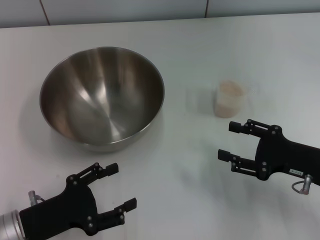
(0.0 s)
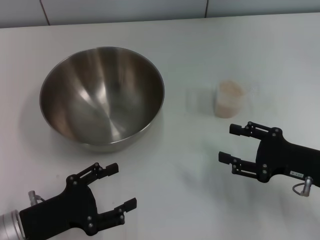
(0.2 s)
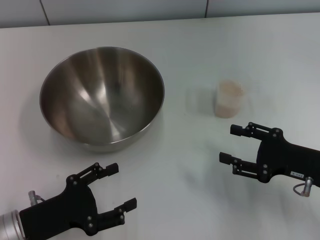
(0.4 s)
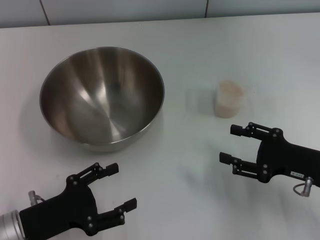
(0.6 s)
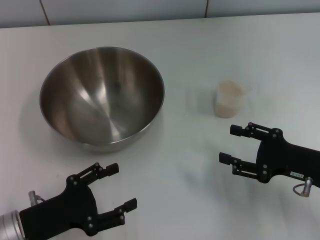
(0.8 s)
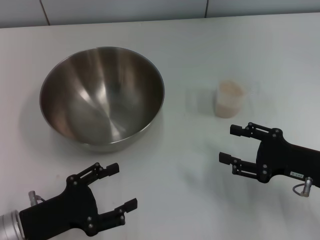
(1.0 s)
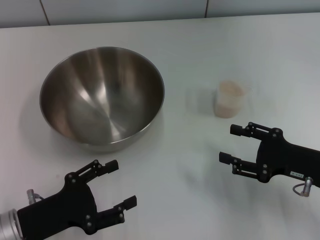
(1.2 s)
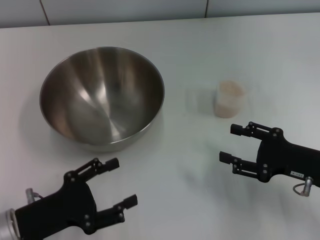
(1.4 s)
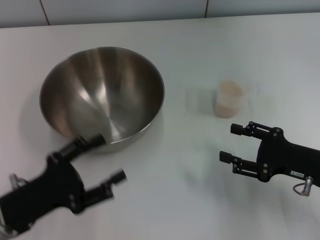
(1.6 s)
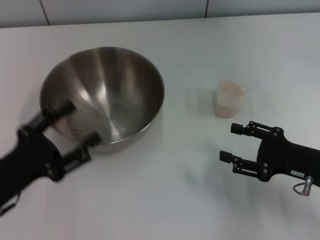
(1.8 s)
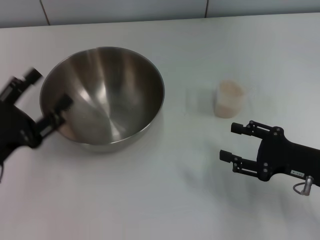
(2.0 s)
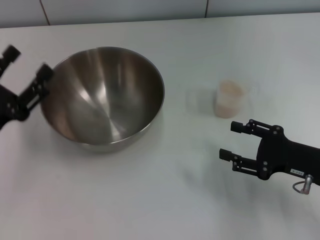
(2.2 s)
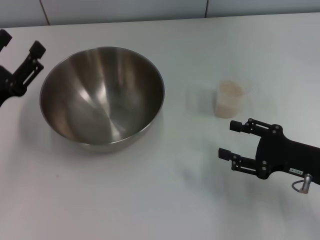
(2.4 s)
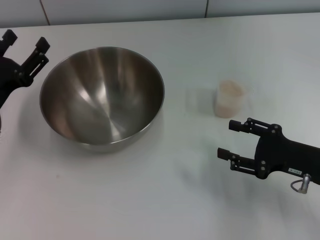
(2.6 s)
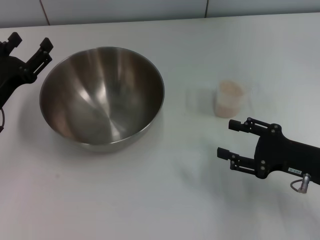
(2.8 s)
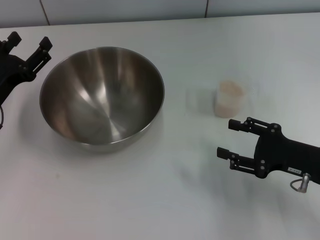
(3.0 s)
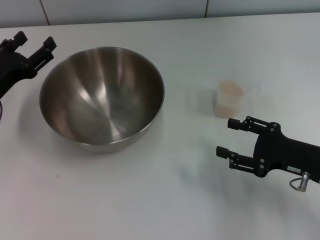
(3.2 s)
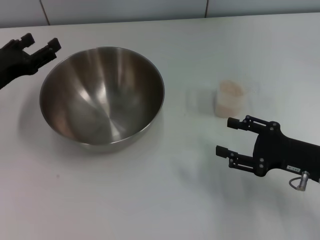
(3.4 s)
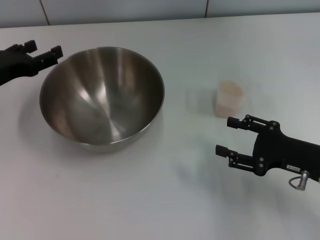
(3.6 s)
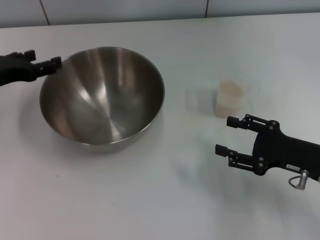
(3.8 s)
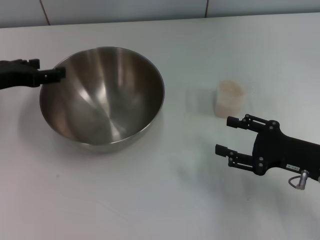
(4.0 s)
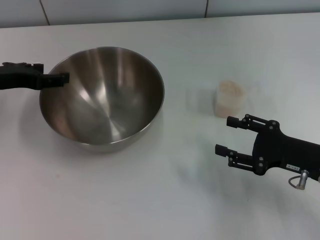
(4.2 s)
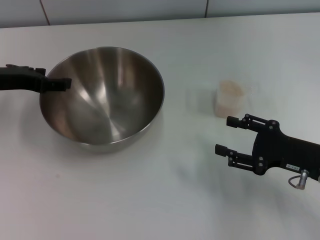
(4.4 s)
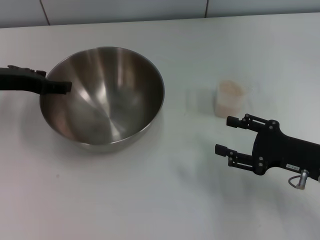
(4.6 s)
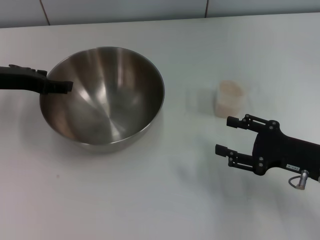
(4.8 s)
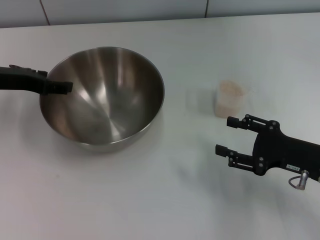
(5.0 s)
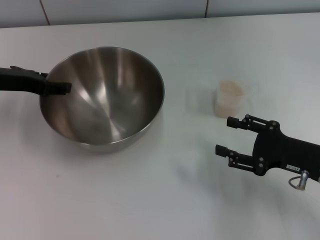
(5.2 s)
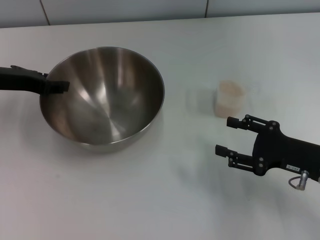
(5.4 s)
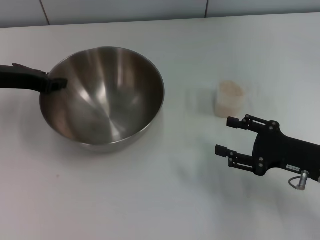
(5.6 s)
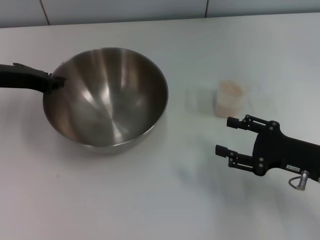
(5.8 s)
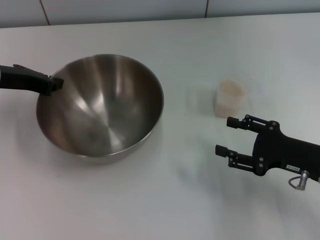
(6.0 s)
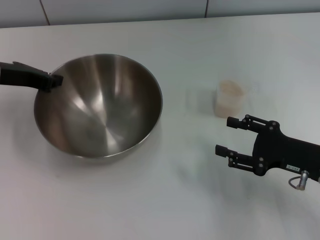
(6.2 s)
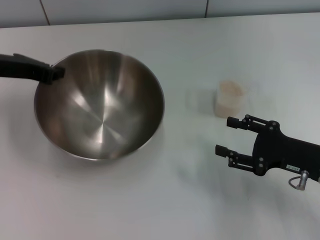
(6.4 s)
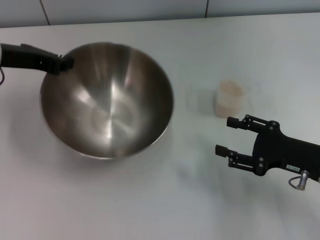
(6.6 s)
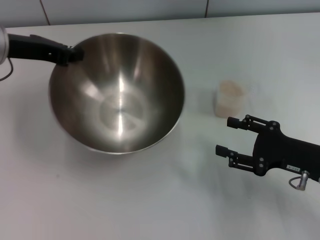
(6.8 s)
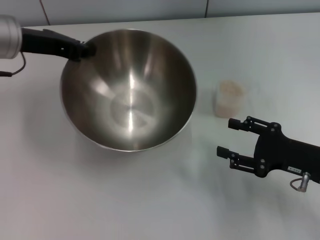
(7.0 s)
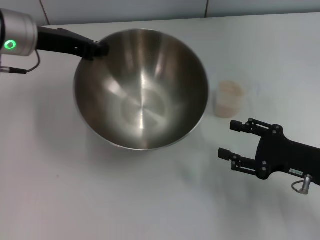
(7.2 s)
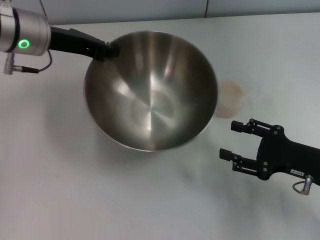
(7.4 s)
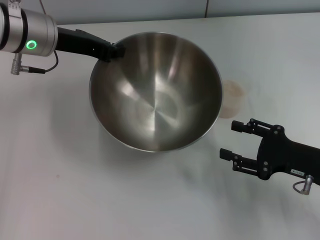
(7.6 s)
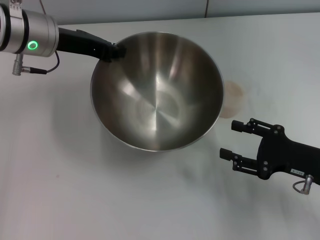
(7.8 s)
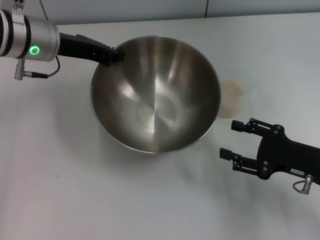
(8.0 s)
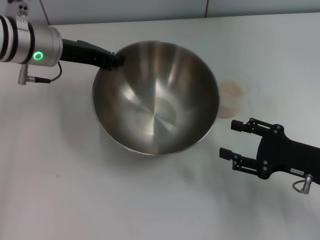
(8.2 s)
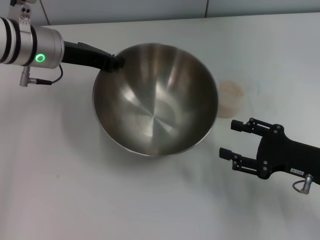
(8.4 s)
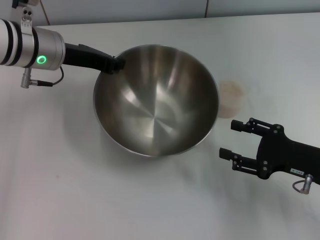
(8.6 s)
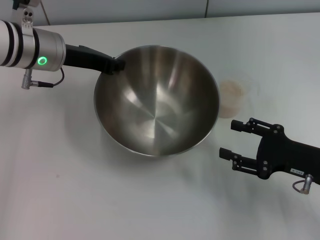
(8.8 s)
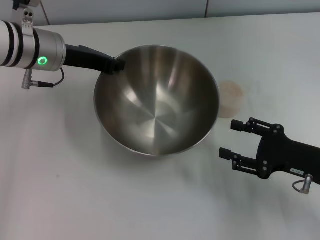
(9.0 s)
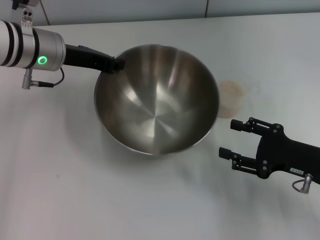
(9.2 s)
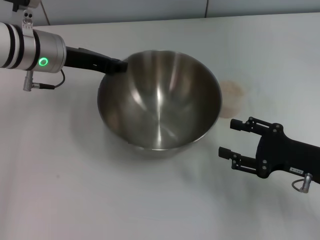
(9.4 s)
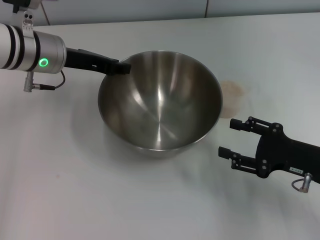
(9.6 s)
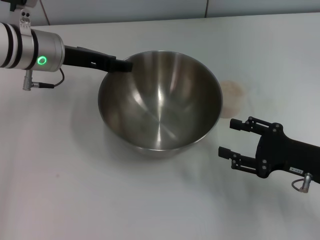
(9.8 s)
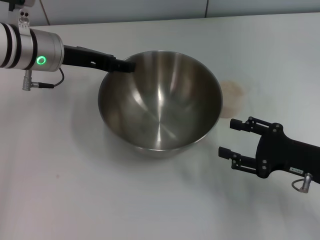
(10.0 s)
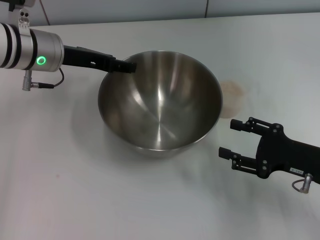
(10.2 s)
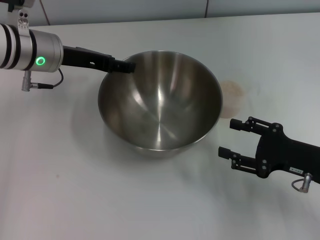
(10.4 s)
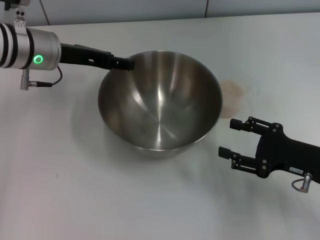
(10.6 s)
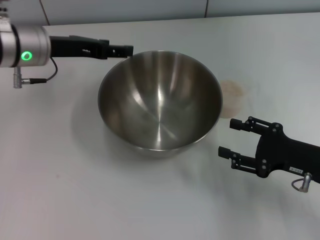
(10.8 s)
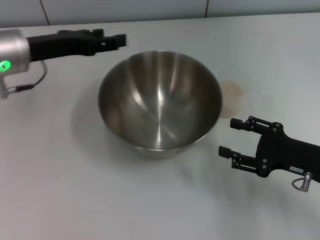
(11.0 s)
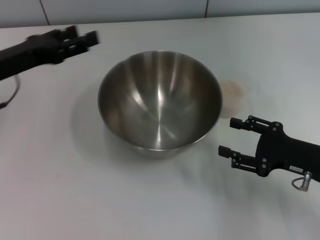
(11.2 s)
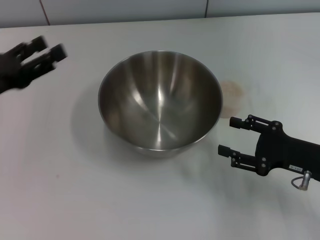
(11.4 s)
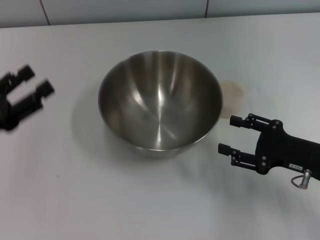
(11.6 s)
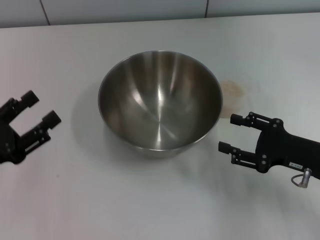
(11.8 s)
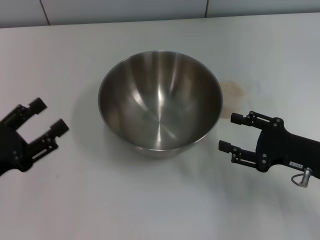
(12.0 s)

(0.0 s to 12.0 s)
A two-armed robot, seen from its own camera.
Task of the whole recording: Place the bowl in the middle of the table with one hand and pour the rice from the grain cup into it with the other hand.
Step, 0.0 s - 6.4 s: Pick up the bowl with the left gripper.
Step, 6.6 s - 10.6 s: Place the bowl in the center of view with the left gripper.
0.0 s - 1.6 s: The grippers make only small movements.
1.6 s - 3.0 s: The left gripper travels forward by about 10 cm.
3.0 s - 4.4 s: The left gripper shifts approximately 10 cm upward and forward.
4.4 s - 6.0 s: The left gripper closes.
6.0 s - 7.6 s: The left gripper goes some 10 cm to the right.
7.6 s - 9.0 s: The grippers stay close to where they were, moving slightly.
9.0 s - 10.4 s: The left gripper opens its fingers.
10.4 s - 12.0 s: The left gripper shifts about 25 cm backward, to the left and downward.

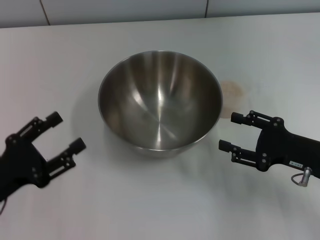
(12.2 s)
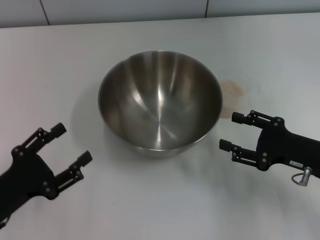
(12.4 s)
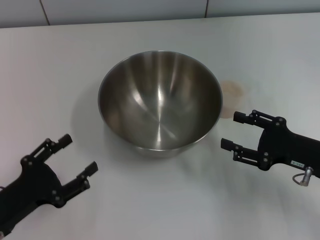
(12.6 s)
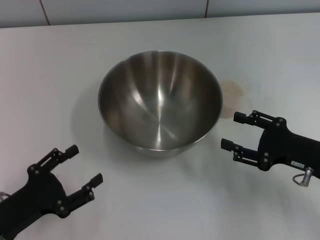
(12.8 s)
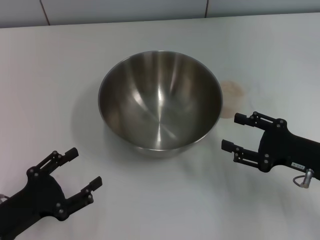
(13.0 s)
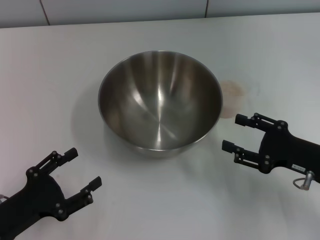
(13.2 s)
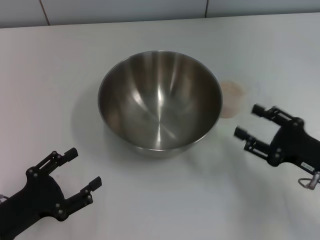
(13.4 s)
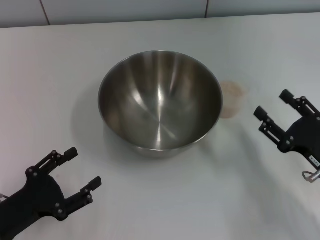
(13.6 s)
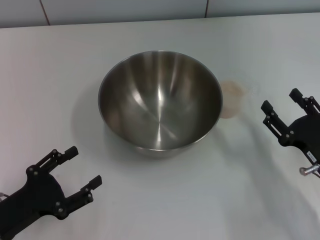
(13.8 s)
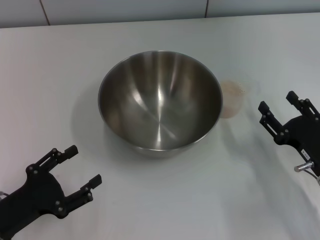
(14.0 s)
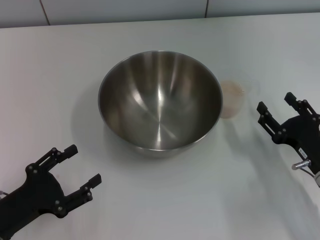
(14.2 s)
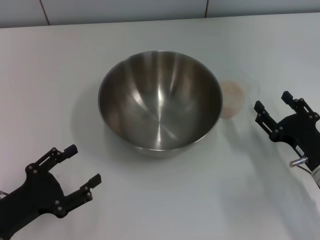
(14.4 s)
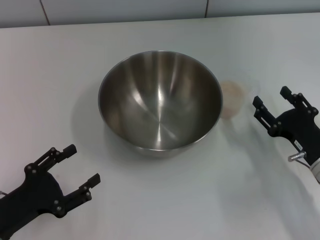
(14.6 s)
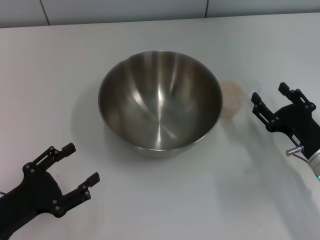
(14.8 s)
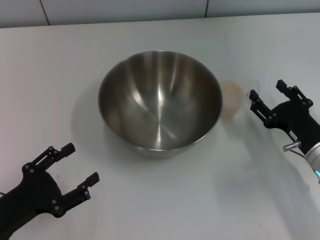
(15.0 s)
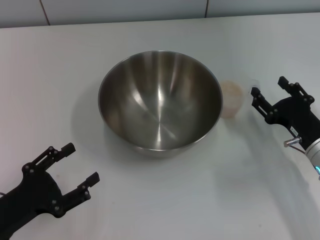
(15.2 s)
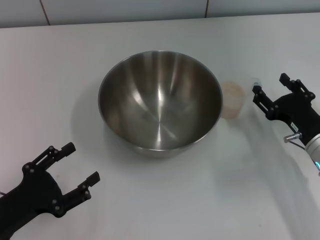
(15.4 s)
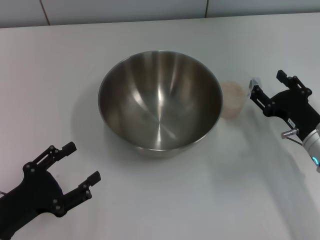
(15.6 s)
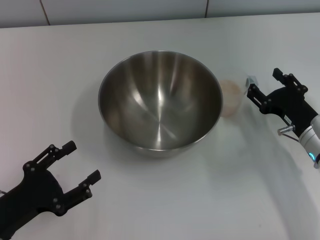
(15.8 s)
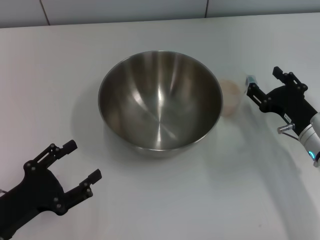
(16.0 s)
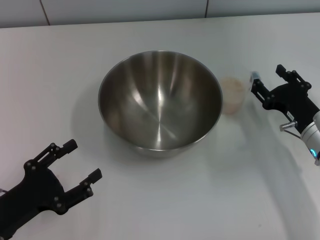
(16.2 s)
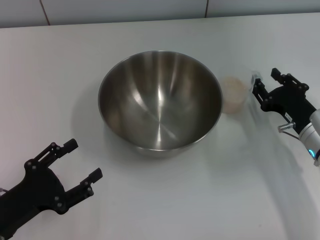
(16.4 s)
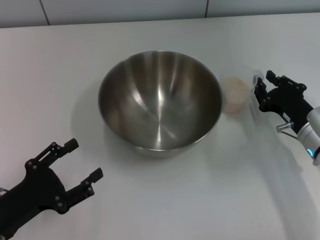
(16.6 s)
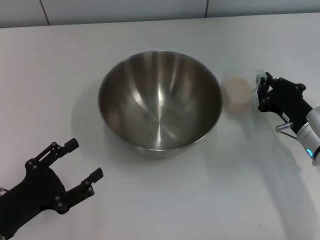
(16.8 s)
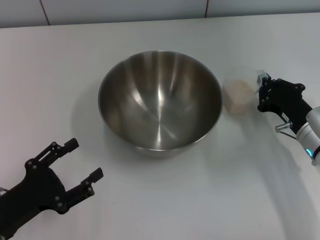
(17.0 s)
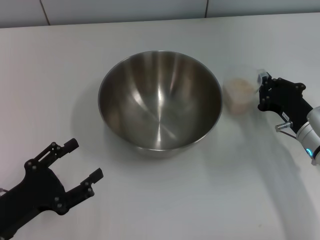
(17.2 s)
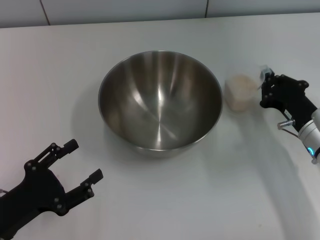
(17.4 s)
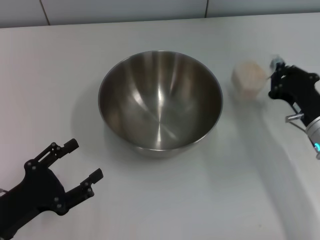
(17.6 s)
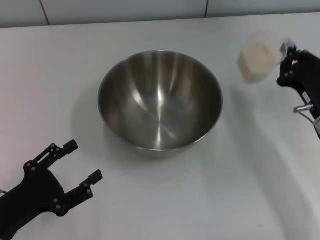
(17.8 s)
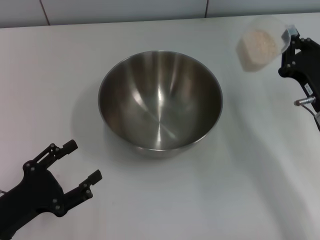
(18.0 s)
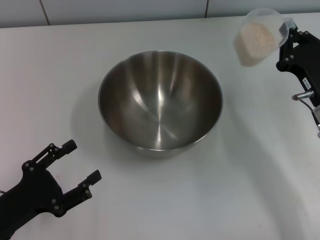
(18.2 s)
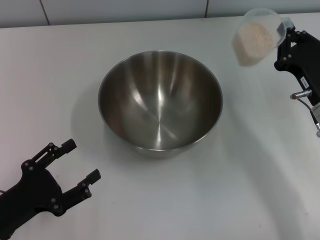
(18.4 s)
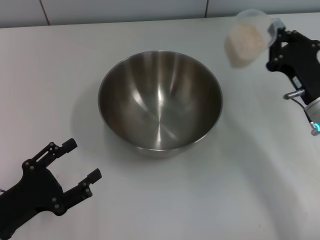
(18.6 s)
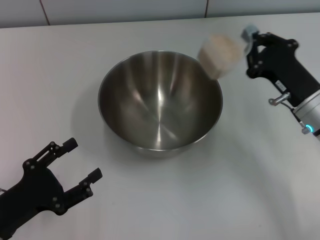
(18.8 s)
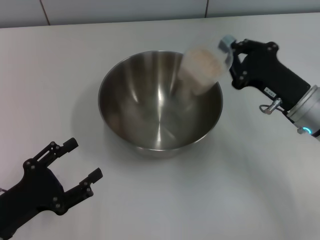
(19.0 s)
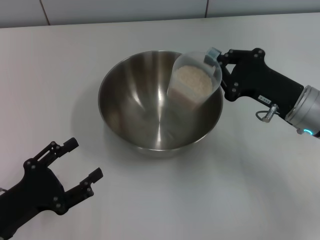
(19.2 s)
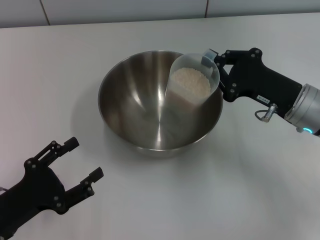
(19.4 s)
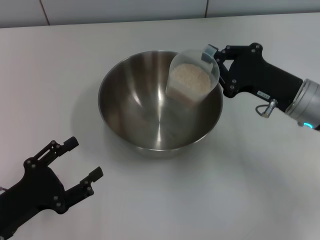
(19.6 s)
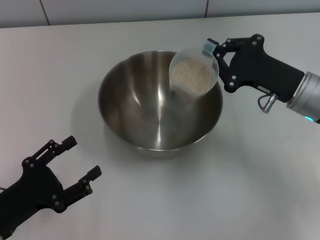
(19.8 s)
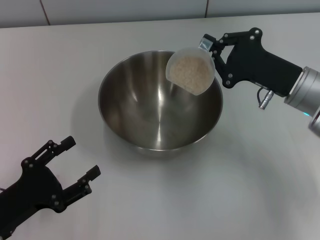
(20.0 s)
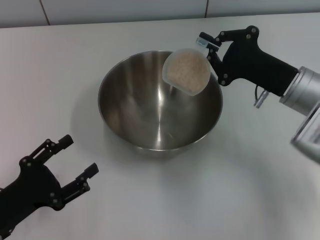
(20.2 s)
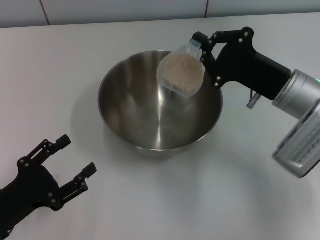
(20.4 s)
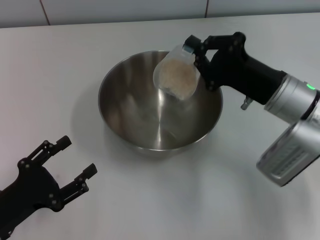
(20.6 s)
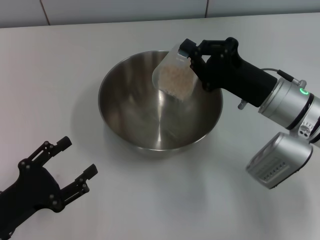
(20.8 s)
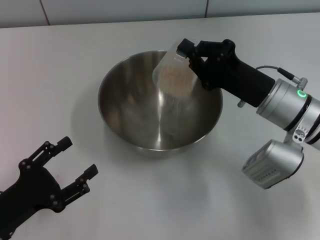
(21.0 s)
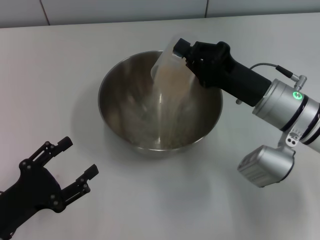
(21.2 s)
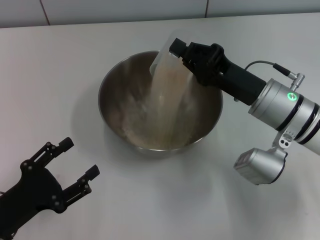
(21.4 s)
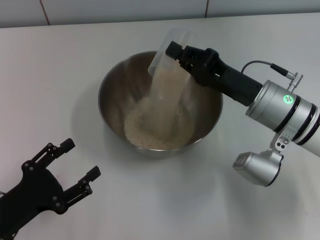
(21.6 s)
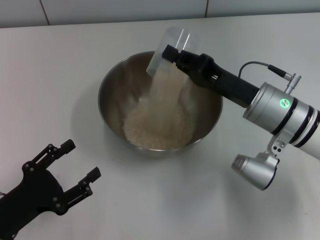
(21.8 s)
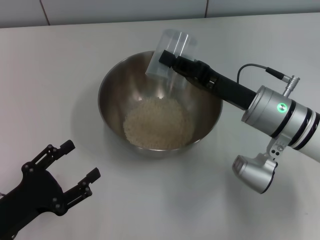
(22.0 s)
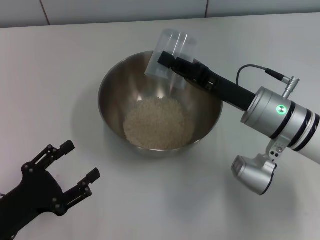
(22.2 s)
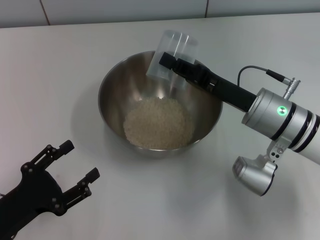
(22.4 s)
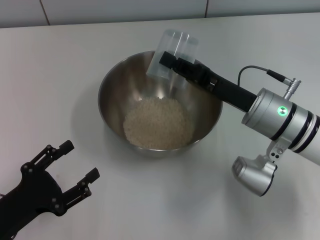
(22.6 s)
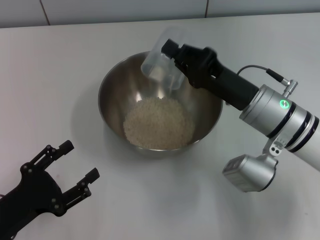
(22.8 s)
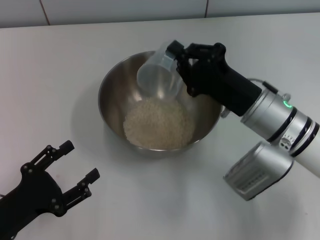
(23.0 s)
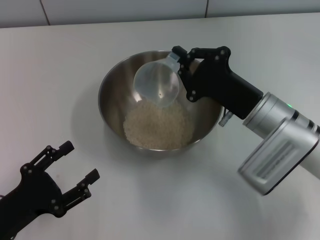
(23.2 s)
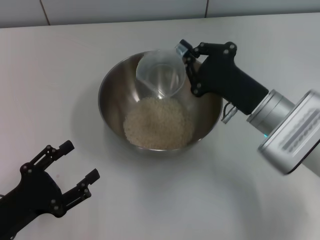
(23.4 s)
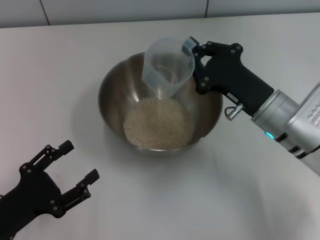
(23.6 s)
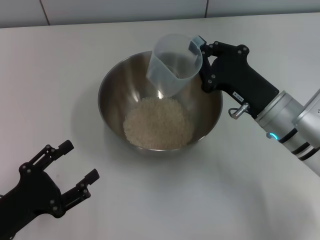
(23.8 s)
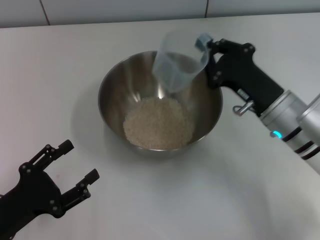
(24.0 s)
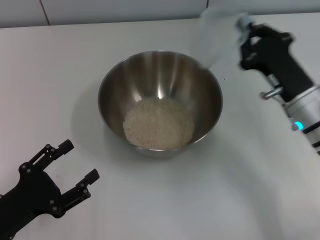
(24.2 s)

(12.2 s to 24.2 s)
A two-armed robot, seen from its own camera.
Task of the whole recording: Place the bowl in the middle of the table with one hand and pour the rice from the grain cup into it with the other hand.
Step, 12.2 s - 17.6 s: Pick up the cup with rice in it with the right gripper.
12.2 s - 13.8 s: The right gripper changes place by some 5 cm.
13.8 s - 15.2 s: The right gripper shifts some 5 cm forward.
15.2 s - 16.6 s: The grippers stay close to where they were, moving slightly.
16.6 s - 18.2 s: The right gripper closes its fingers.
18.2 s - 19.8 s: The right gripper shifts by approximately 5 cm.
19.8 s - 21.2 s: The right gripper ends up approximately 5 cm from where it was.
22.6 s - 24.2 s: The right gripper moves to the right, some 5 cm.
